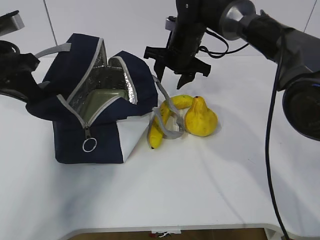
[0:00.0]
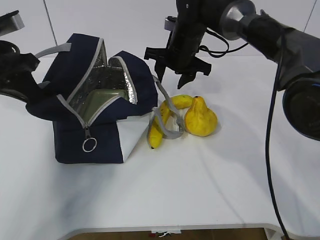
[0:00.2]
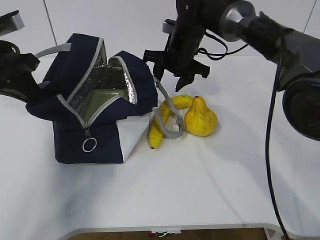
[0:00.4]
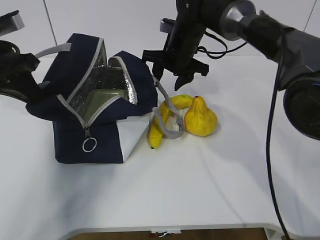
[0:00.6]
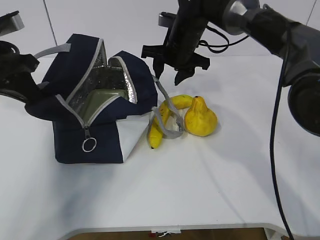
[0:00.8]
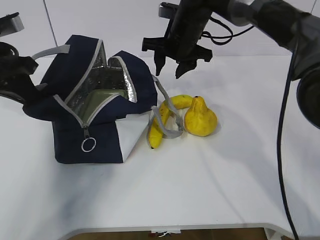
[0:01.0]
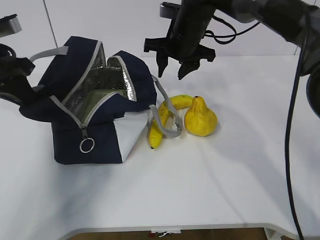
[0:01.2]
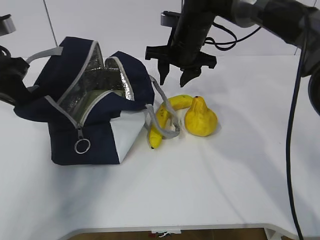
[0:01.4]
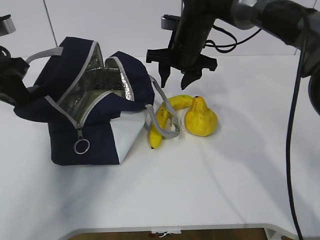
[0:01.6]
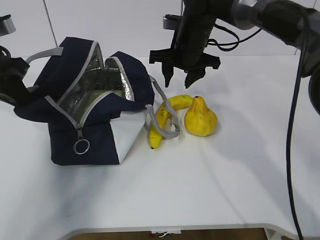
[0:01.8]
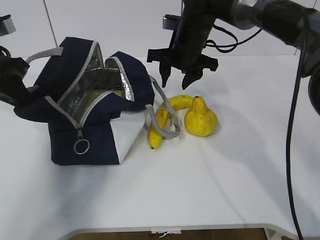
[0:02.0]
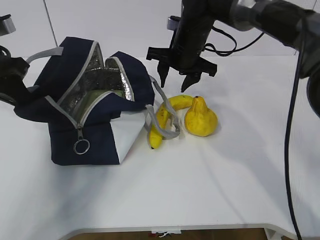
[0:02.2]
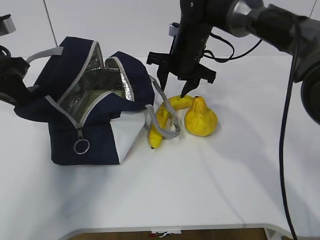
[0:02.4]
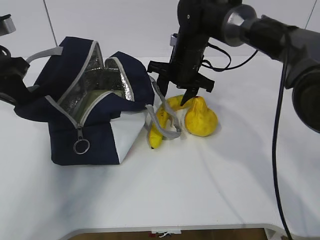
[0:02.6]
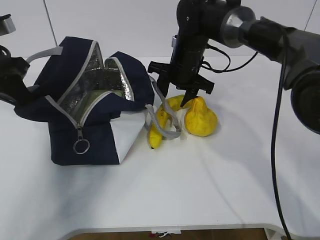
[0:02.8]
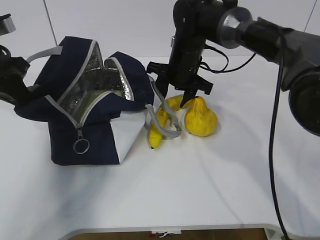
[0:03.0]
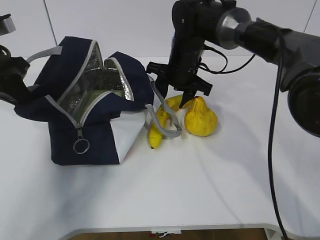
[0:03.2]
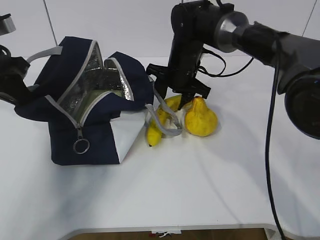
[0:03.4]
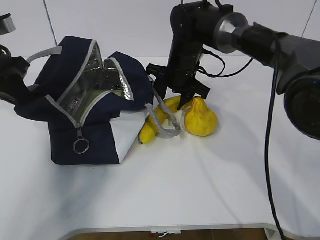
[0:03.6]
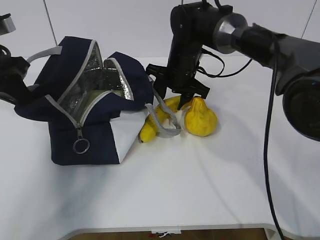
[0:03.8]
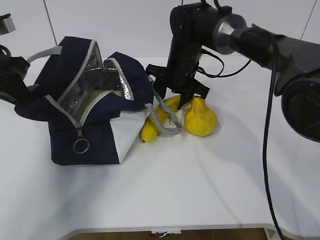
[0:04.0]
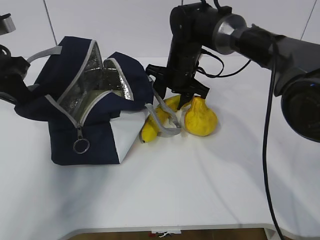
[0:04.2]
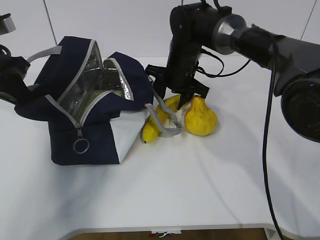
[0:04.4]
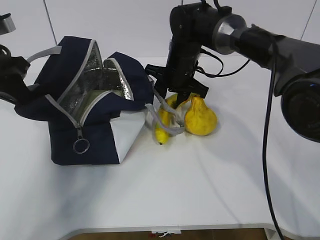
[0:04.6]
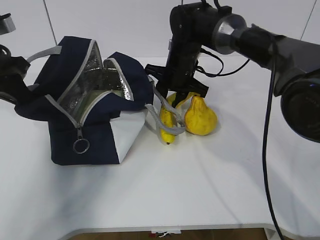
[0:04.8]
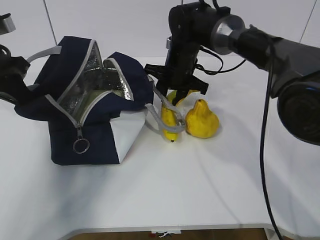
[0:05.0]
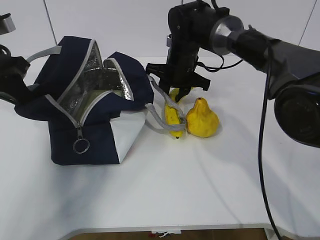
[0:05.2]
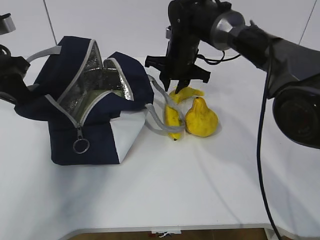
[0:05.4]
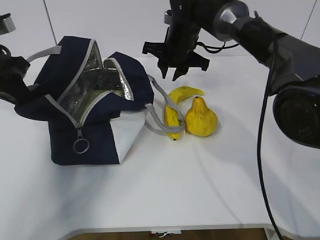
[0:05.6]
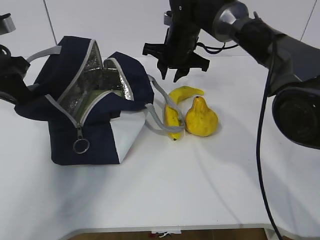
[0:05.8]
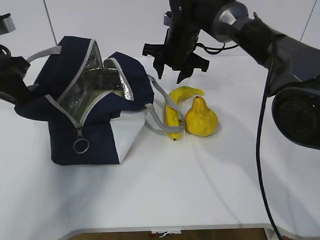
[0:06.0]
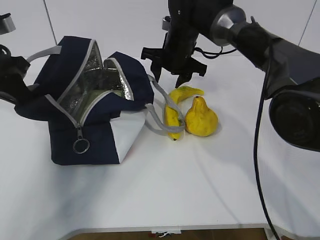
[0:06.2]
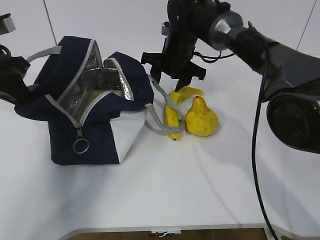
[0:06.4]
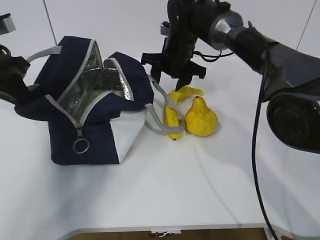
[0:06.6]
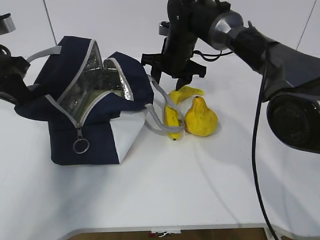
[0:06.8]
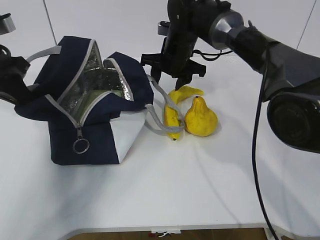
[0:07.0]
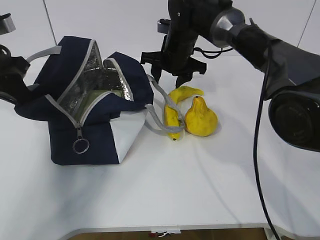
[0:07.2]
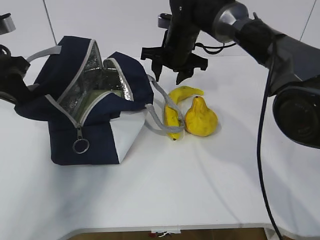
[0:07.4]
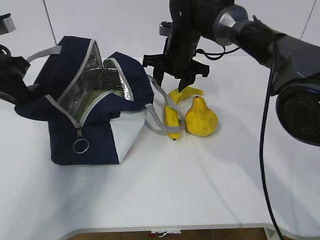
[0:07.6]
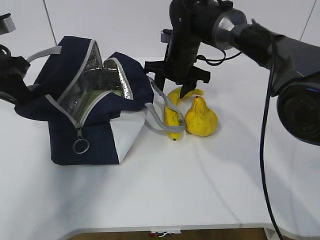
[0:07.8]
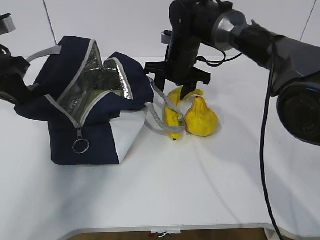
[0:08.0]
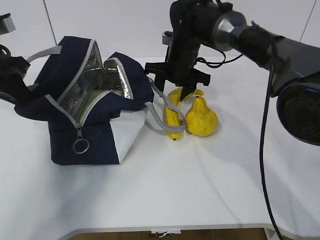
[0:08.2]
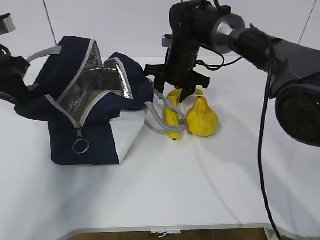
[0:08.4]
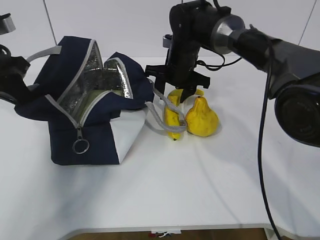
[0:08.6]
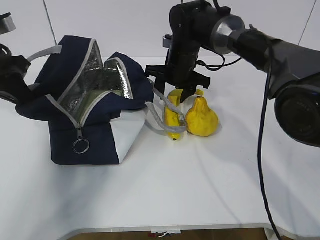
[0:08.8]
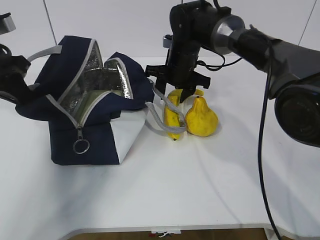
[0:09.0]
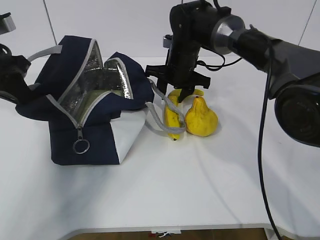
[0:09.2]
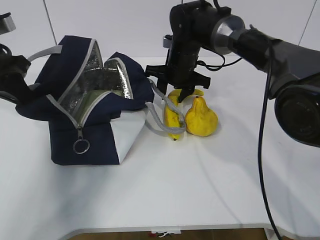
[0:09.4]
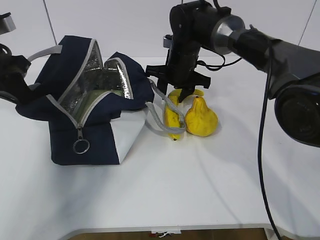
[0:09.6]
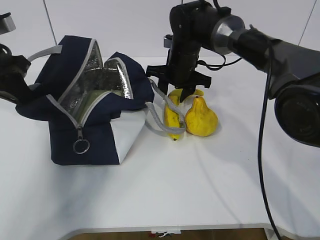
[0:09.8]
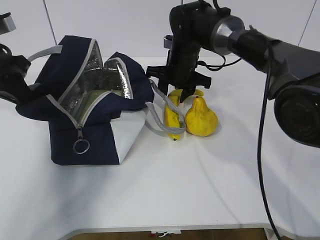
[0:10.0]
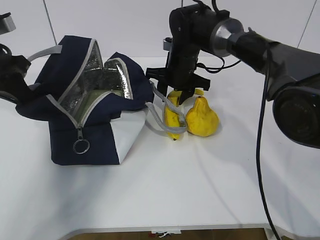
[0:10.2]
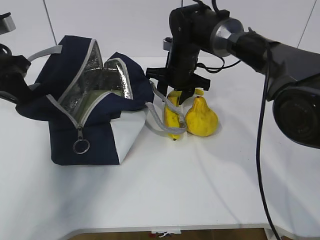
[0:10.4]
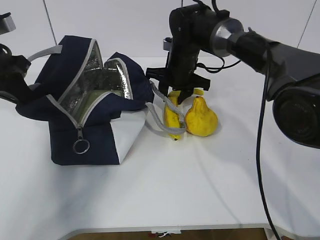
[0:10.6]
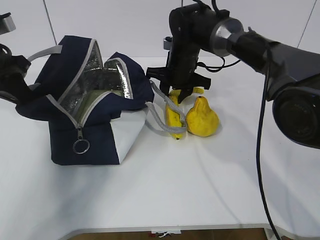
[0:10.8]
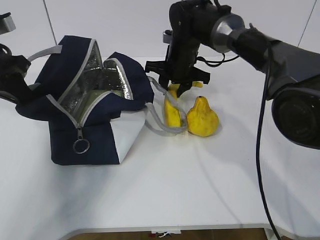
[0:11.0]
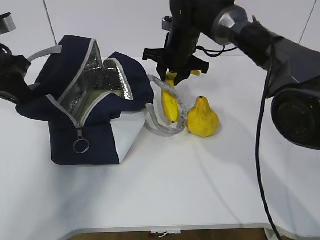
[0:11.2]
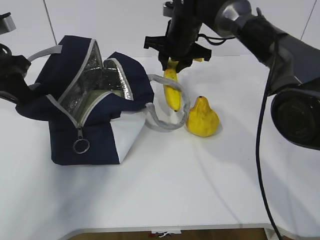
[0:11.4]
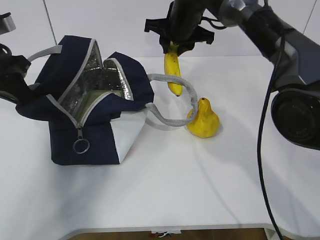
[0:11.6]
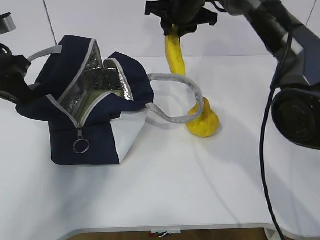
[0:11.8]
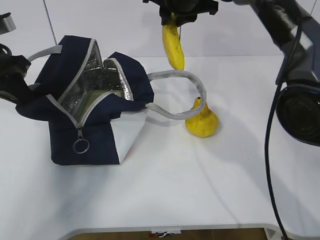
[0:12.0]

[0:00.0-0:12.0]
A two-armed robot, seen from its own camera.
Step, 0:00.0 to 0:05.0: Grasp the banana with the right gripper.
0:03.0 to 0:09.0: There are only small adjustments of the grippers.
0:09.0 to 0:10.4: Both grippers stay about where they are.
0:10.4 to 0:12.0: The right gripper shifts approximately 15 cm upward.

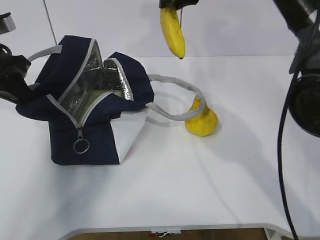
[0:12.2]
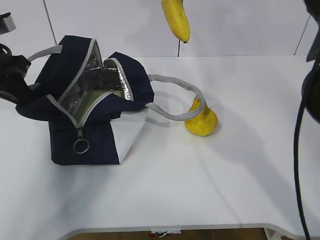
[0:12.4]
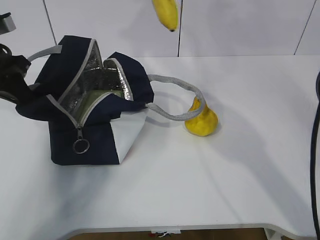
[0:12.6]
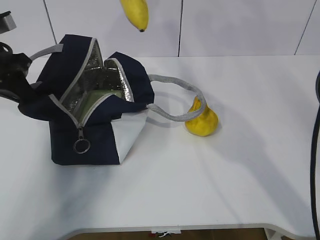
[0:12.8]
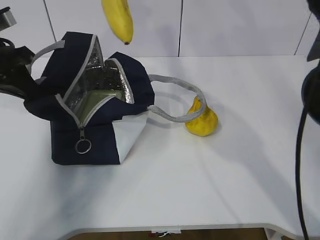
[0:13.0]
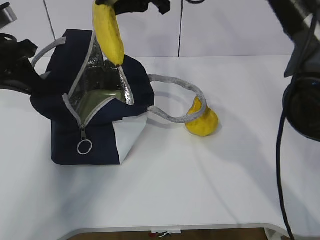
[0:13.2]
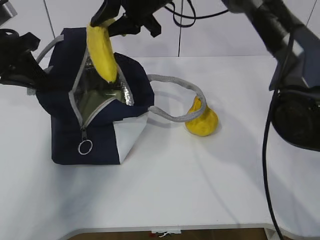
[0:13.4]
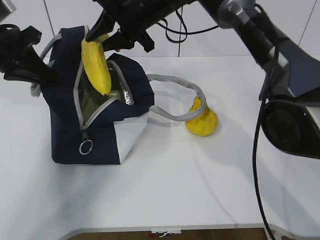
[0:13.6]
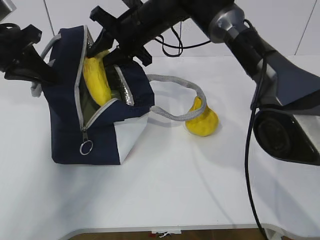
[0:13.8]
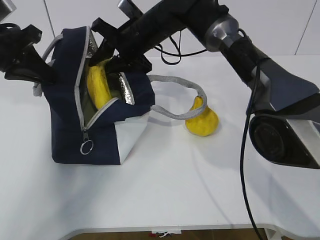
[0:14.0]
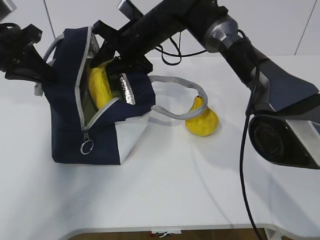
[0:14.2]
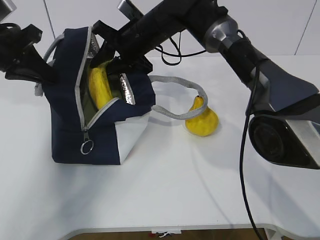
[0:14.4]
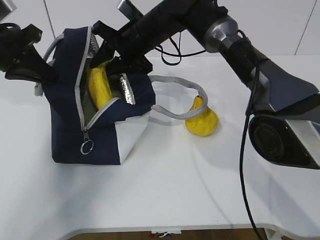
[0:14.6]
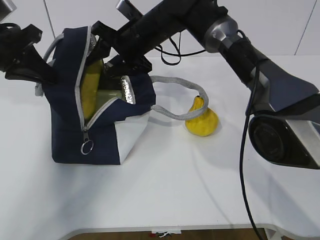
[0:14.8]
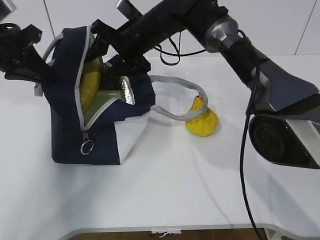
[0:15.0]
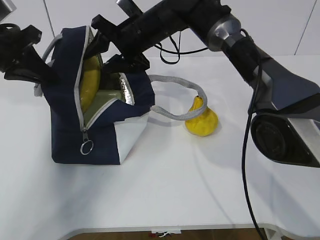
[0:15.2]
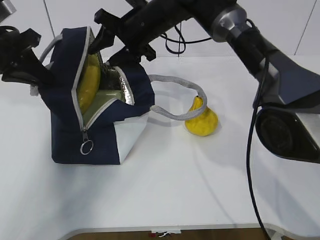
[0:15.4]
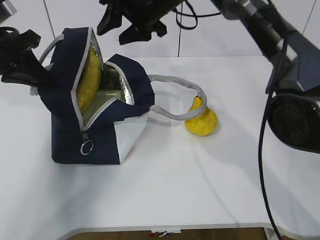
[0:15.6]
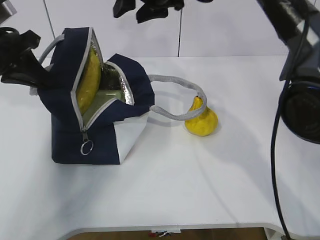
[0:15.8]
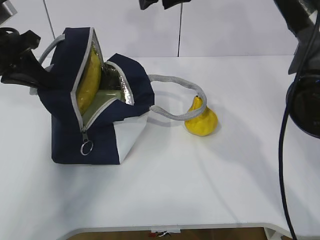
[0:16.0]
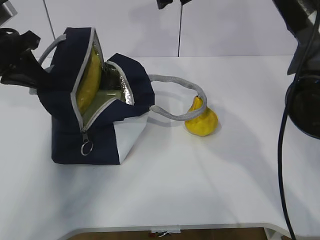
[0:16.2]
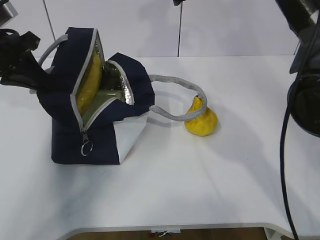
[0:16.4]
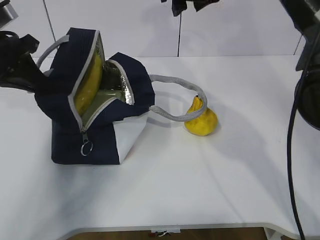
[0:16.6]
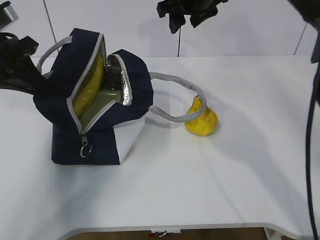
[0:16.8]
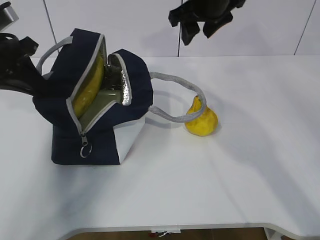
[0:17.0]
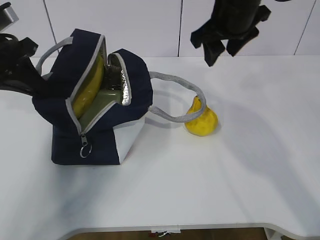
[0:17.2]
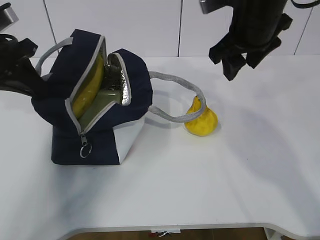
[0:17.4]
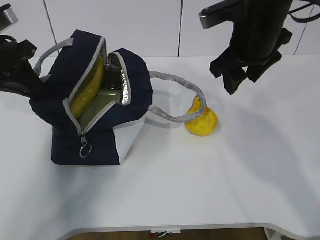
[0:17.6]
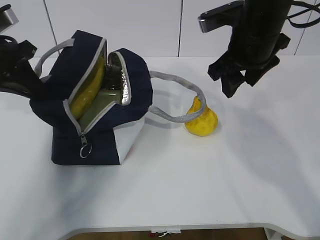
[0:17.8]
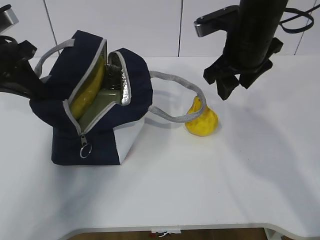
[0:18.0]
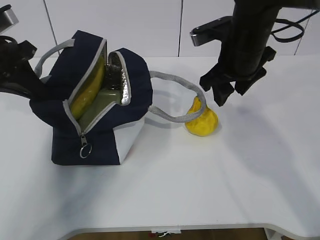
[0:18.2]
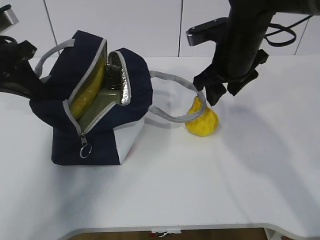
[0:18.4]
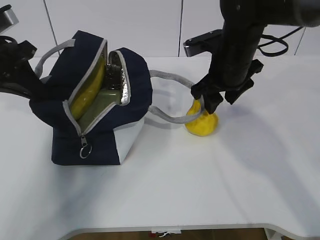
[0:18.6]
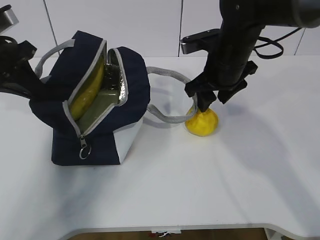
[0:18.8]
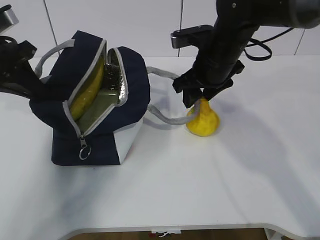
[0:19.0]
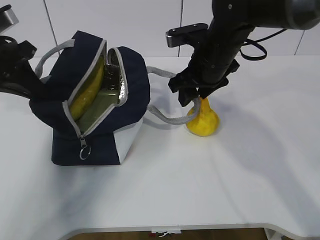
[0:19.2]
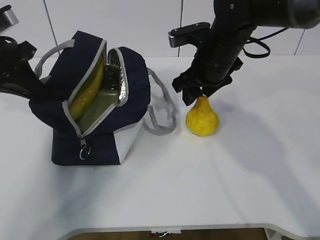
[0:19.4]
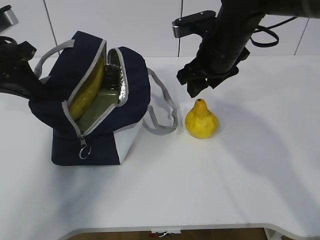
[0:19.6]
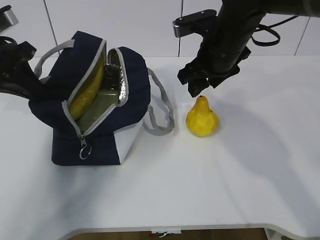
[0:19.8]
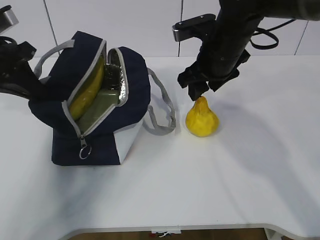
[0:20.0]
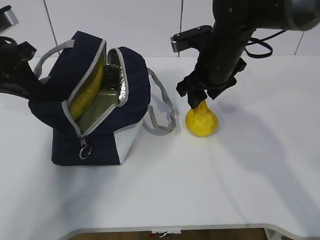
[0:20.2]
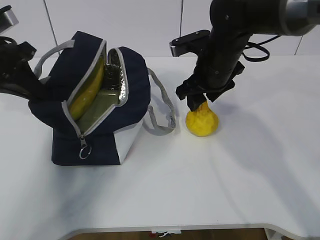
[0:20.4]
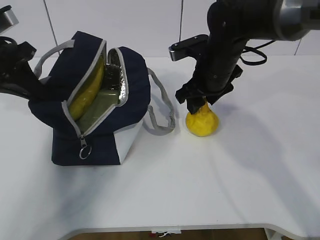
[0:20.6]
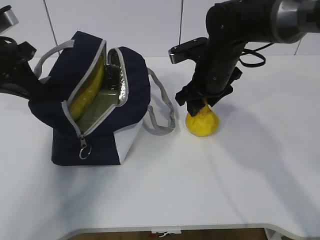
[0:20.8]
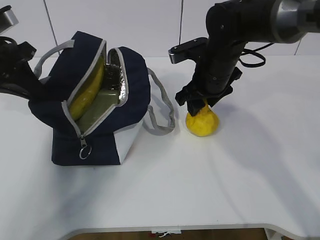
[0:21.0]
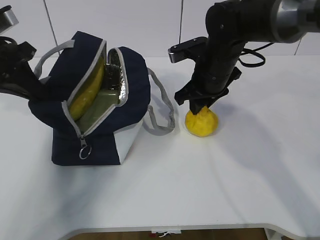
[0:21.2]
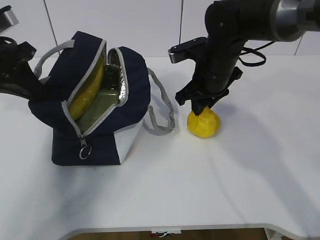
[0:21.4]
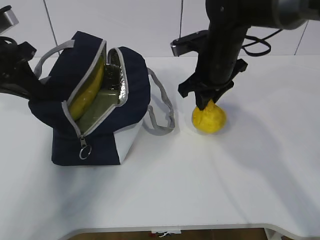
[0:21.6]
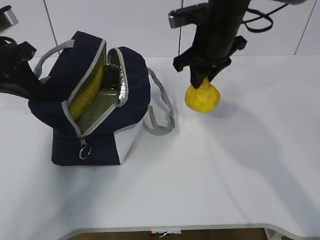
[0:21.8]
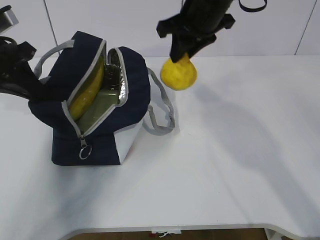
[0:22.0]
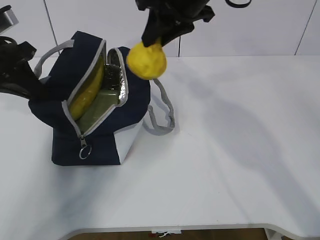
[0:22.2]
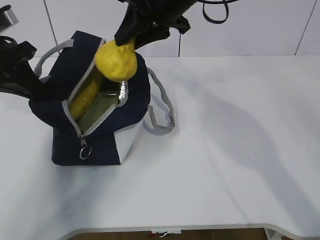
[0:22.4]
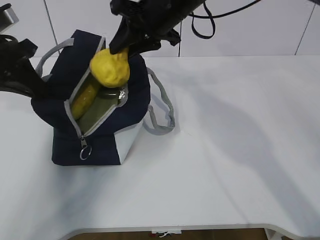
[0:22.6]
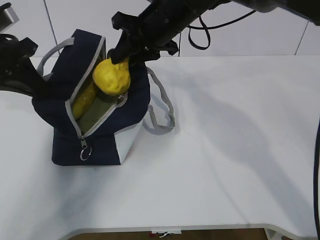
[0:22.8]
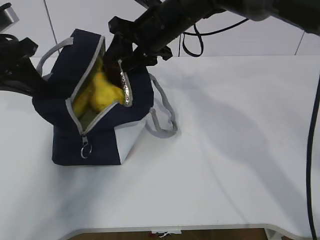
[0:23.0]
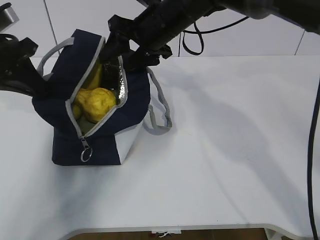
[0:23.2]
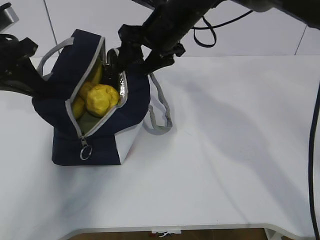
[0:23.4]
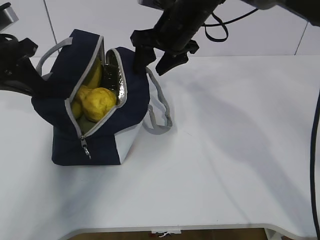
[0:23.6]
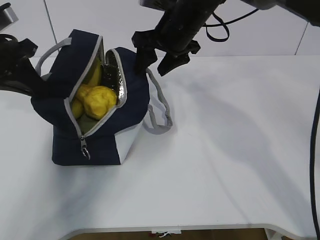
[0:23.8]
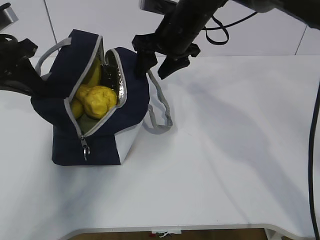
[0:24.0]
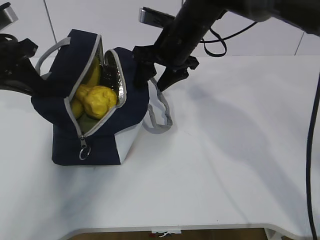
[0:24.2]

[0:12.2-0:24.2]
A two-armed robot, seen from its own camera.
Step, 0:12.2 to 0:15.4: Place the banana into the package with the right gripper.
Step, 0:15.6 to 0:21.2: Grasp the pear with the right gripper.
Step, 0:21.4 to 0:23.0: Place the pear into the package with the right gripper.
0:12.2 to 0:13.8: The right gripper heads downward and to the left, covering some 10 cm.
0:13.8 to 0:15.2: The right gripper opens its fingers.
0:15.2 to 0:16.6: The right gripper is displaced to the right and upward by roughly 15 cm.
0:16.6 to 0:18.2: The right gripper goes some 15 cm backward and downward.
0:18.2 to 0:19.8: The grippers move only a little.
0:19.8 to 0:21.2: The right gripper heads downward, covering approximately 5 cm.
0:21.2 to 0:22.6: The right gripper goes about 15 cm upward and to the left.
0:22.6 to 0:24.2: The right gripper travels downward by approximately 5 cm, and opens.
